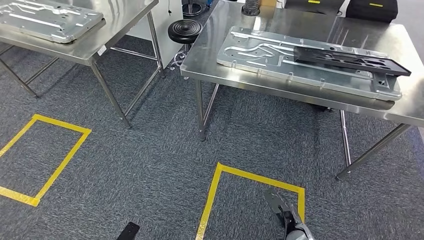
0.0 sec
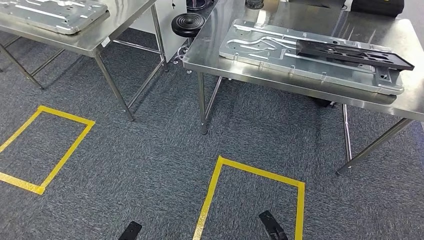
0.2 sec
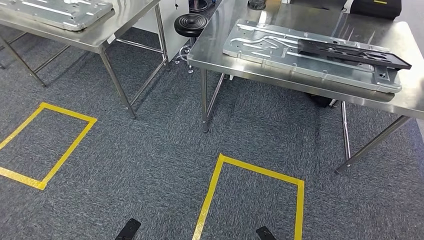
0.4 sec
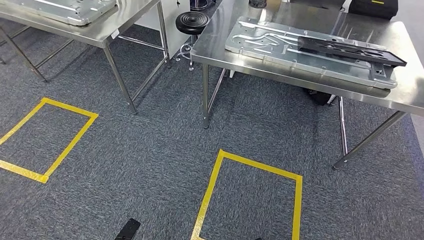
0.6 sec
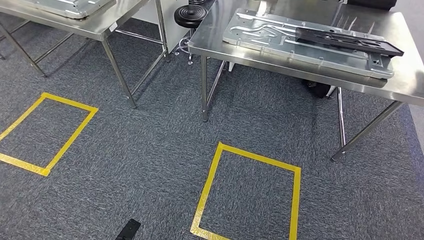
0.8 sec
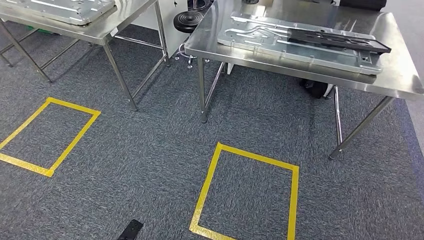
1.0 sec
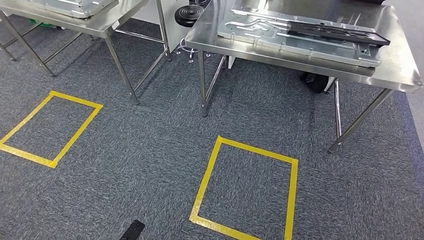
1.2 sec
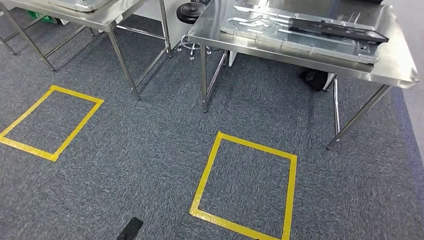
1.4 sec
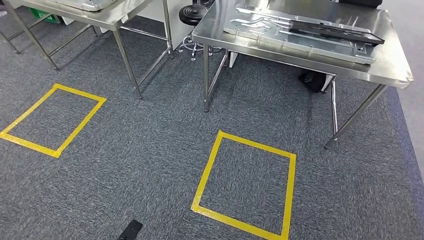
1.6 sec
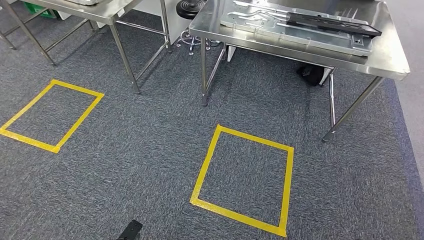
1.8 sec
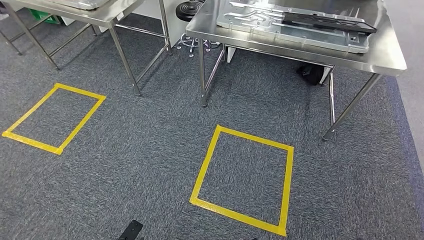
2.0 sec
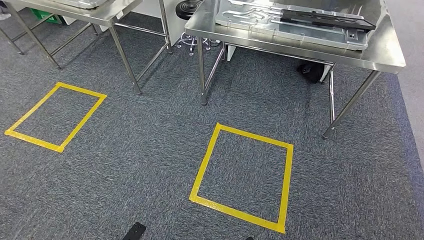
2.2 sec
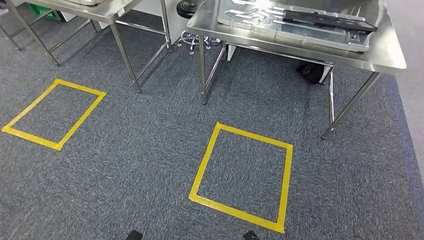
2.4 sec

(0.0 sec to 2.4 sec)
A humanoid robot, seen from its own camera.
Step, 0.0 sec - 2.4 sec: Move to the initial position of the shelf.

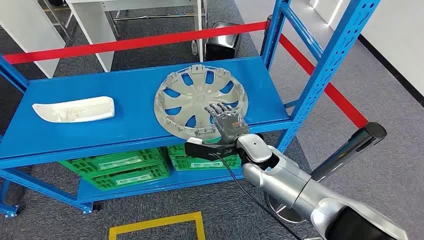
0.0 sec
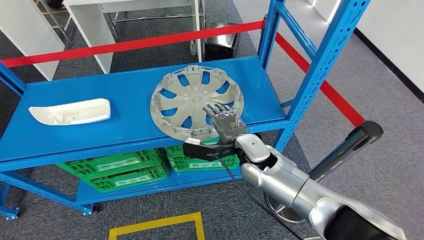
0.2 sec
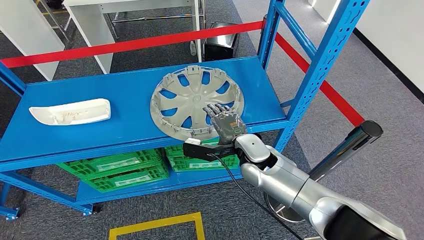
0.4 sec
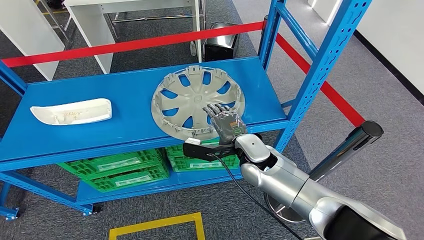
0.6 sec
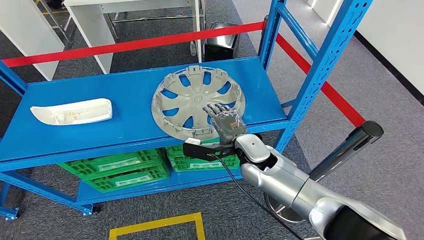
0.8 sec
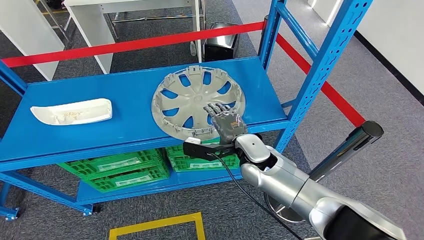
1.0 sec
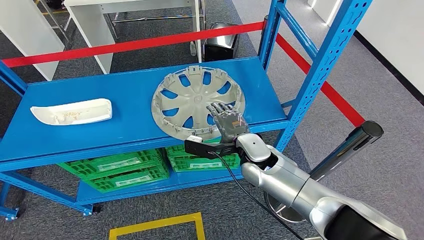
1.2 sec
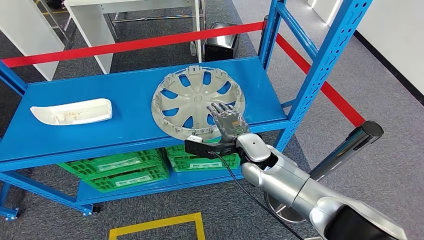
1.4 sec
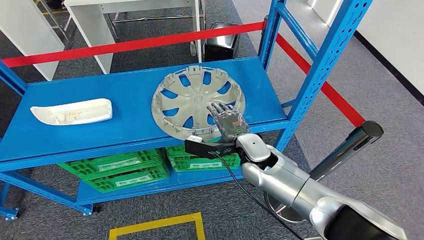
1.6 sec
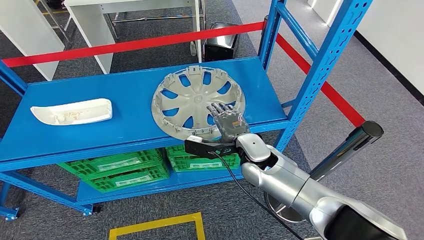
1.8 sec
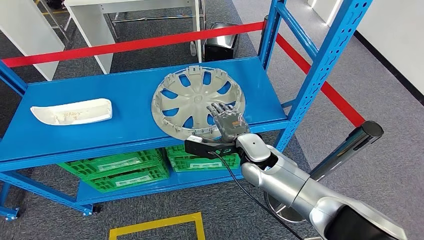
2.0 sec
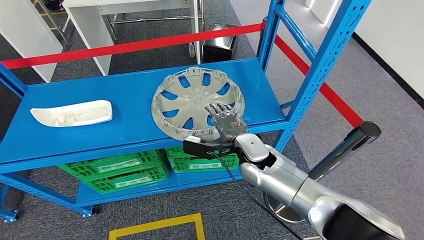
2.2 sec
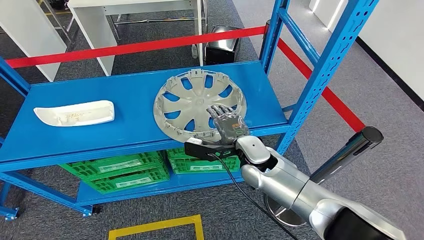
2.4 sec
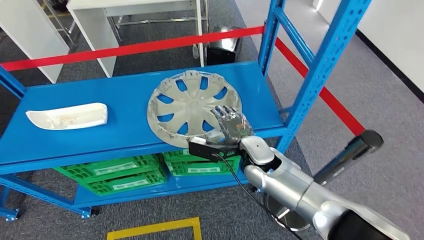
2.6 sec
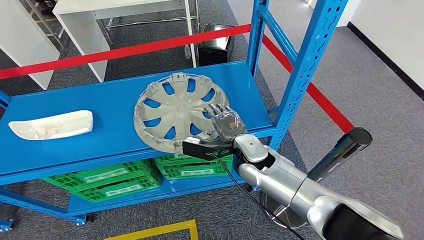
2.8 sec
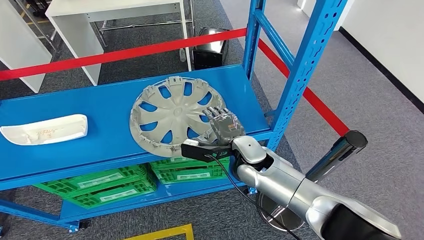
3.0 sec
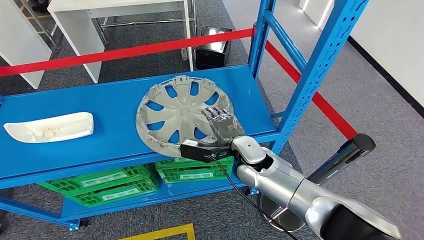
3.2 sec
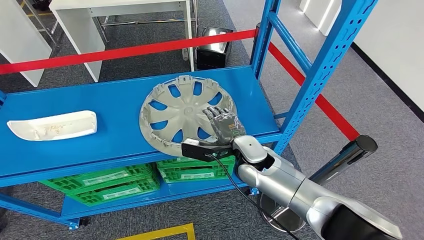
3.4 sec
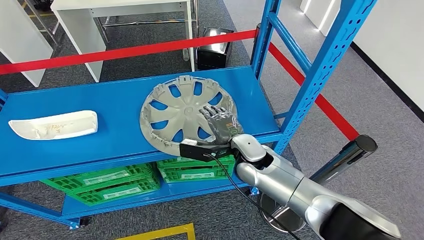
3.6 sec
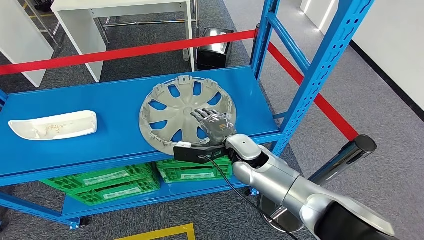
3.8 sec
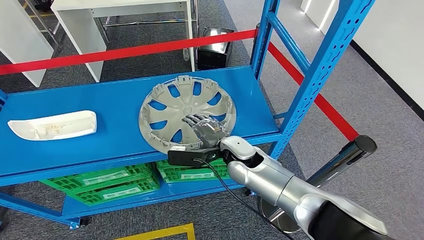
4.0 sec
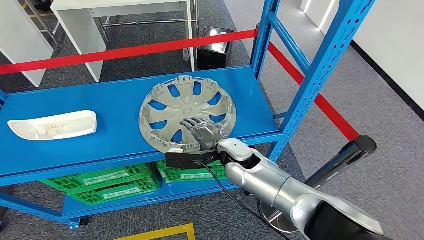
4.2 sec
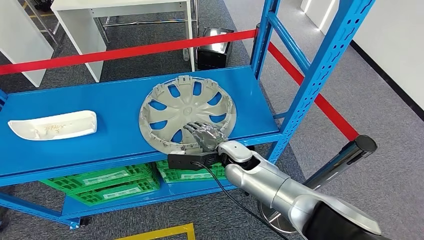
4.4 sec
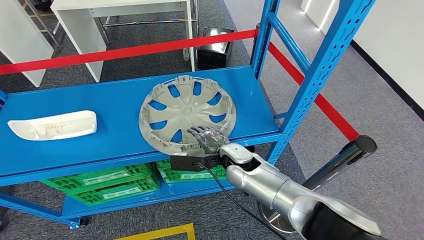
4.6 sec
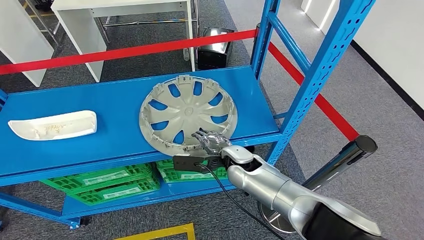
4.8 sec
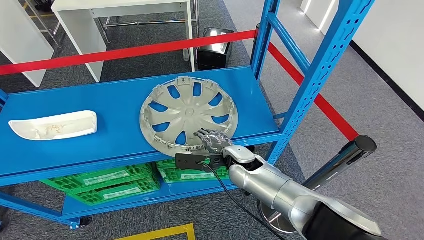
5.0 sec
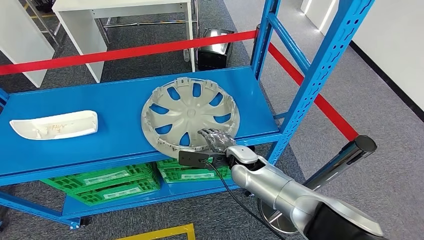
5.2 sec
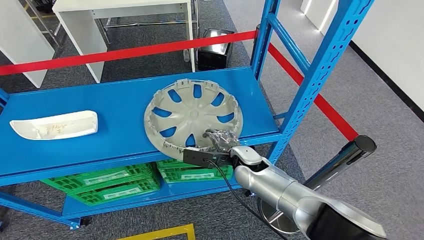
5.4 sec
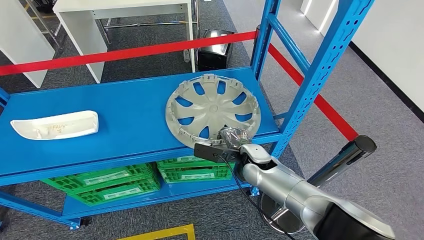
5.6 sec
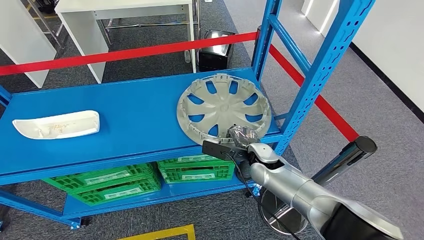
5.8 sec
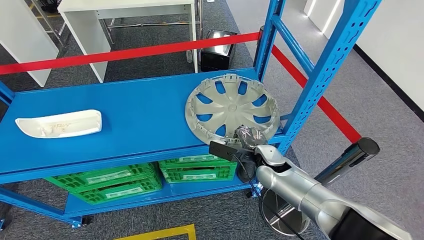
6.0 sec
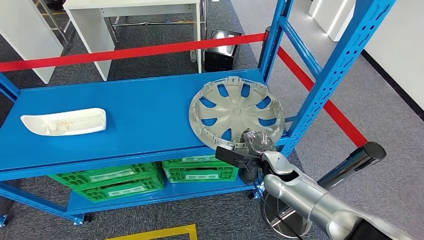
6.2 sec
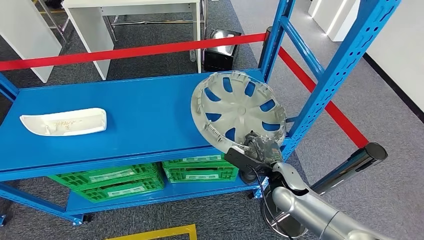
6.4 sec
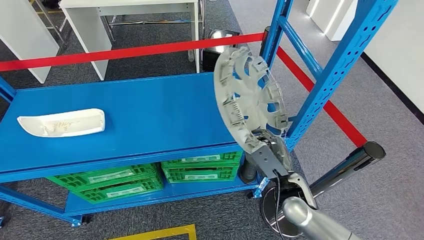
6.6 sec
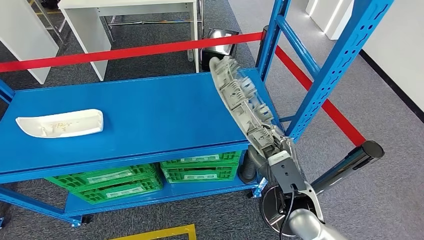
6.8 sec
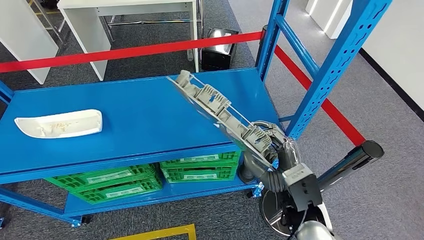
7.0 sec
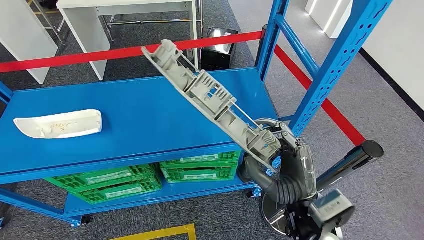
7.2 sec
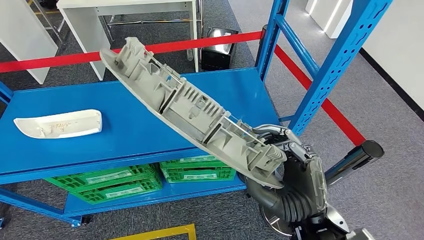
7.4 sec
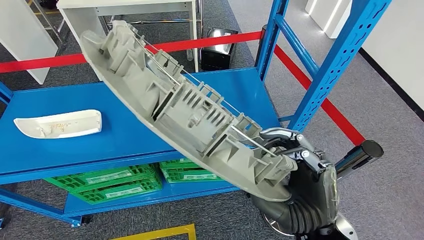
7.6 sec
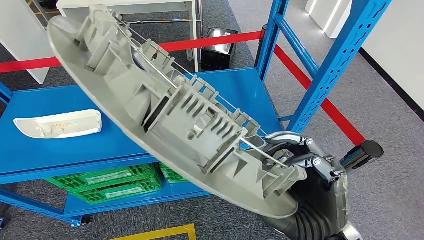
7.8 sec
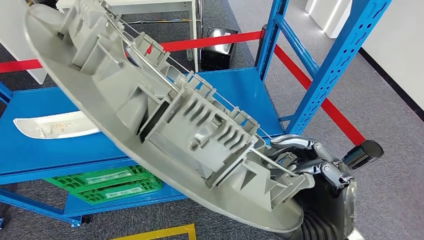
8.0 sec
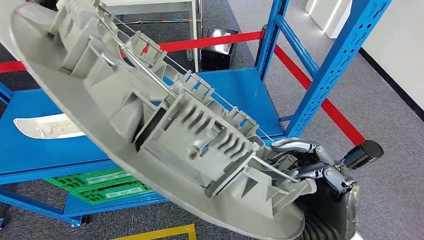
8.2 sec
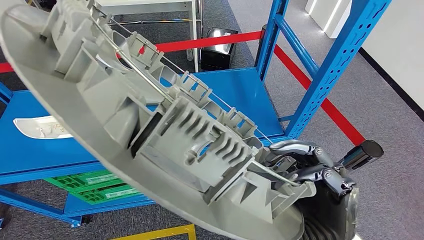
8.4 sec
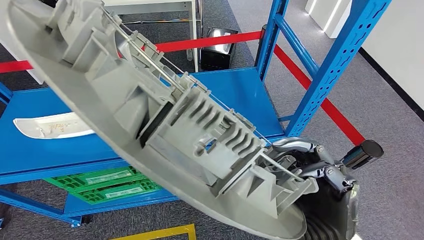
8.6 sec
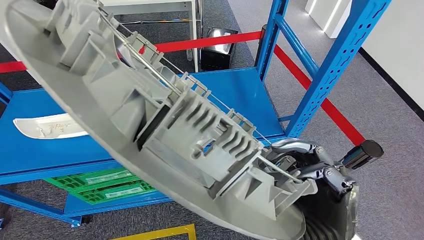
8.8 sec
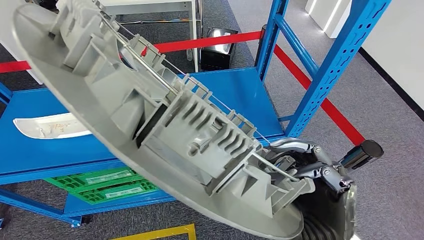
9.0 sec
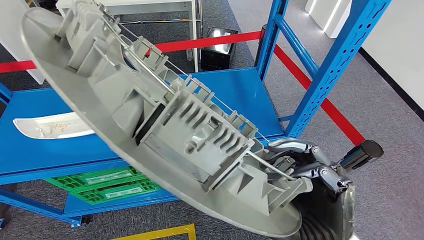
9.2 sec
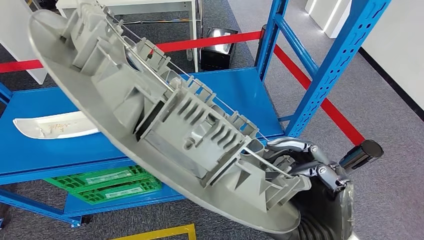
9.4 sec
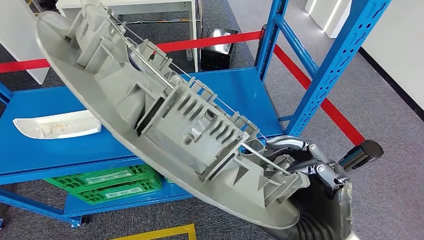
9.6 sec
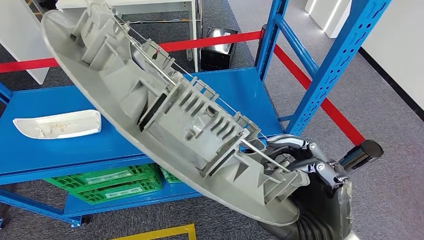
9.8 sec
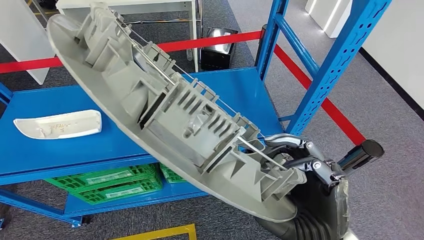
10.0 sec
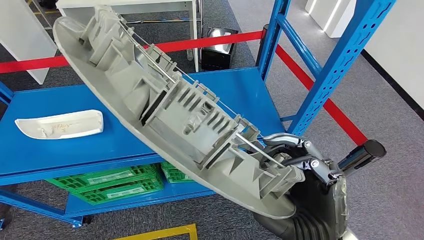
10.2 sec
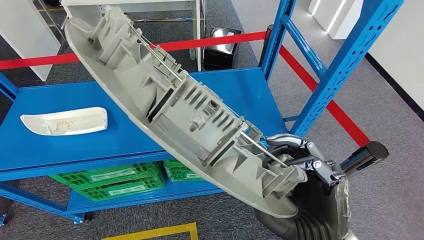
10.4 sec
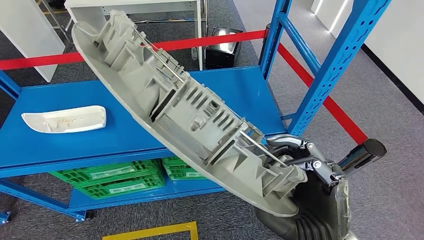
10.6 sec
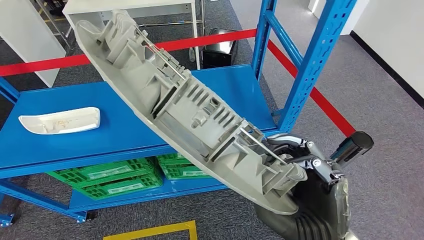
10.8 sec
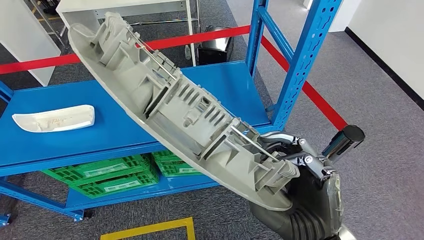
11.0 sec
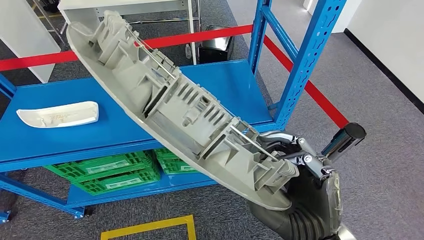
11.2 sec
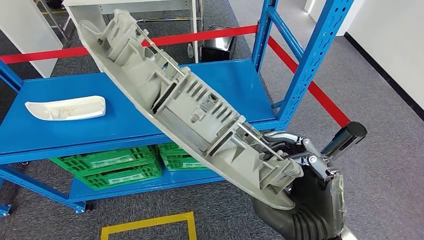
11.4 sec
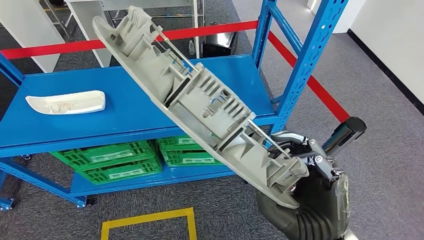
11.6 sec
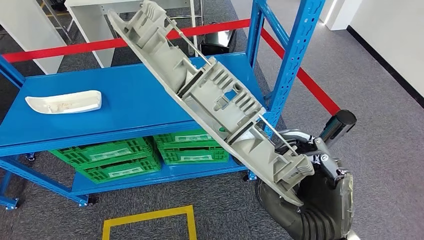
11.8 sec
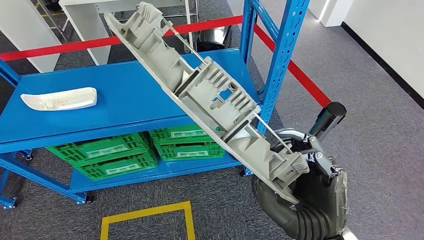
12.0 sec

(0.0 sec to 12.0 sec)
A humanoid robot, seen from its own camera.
Step, 0.0 sec - 8.0 sec: Pick up the large material from the shelf.

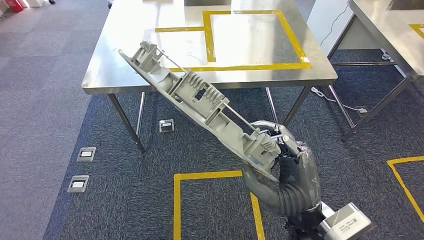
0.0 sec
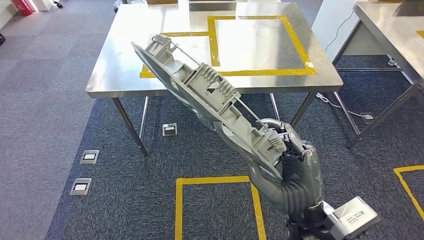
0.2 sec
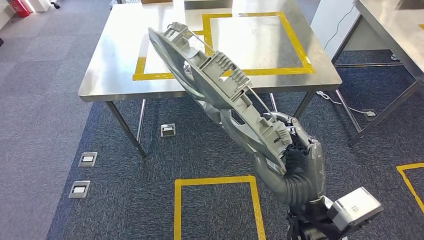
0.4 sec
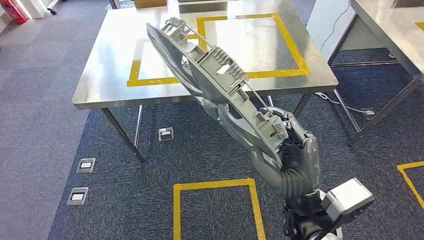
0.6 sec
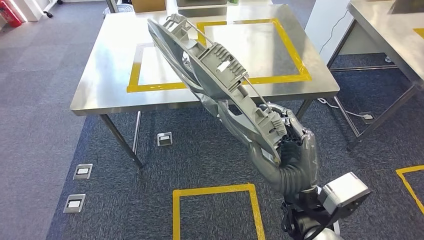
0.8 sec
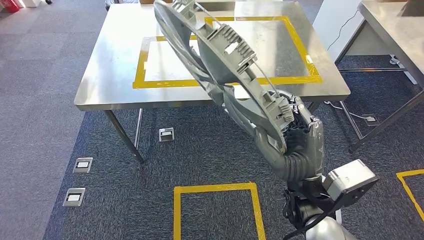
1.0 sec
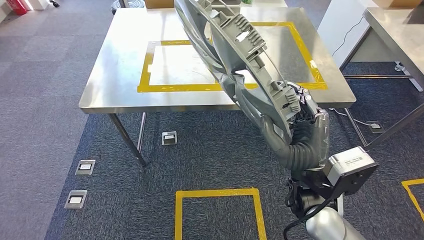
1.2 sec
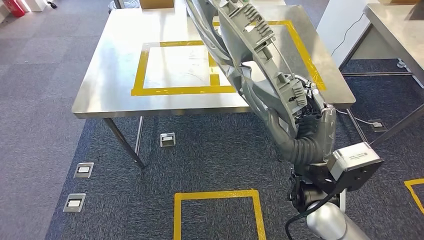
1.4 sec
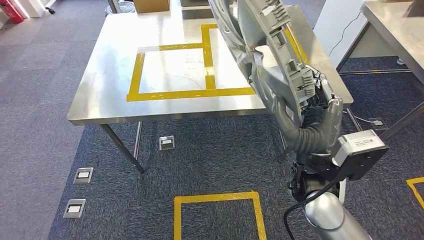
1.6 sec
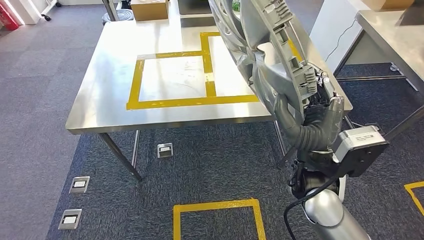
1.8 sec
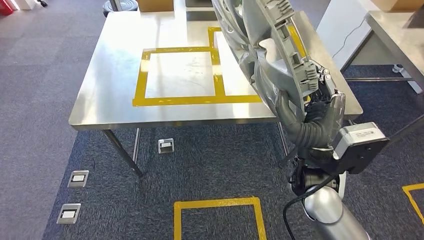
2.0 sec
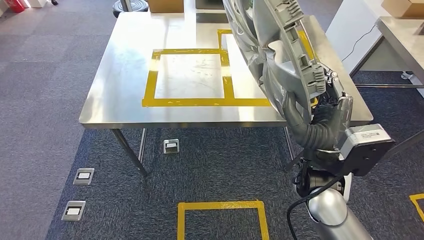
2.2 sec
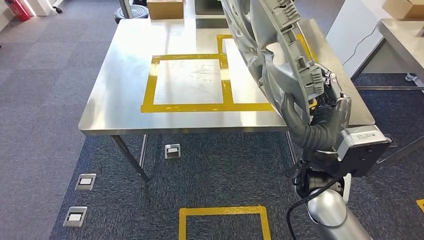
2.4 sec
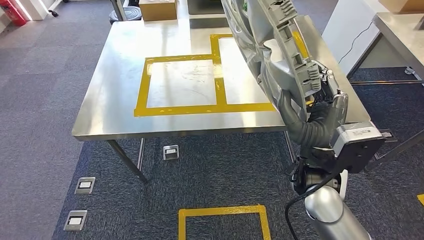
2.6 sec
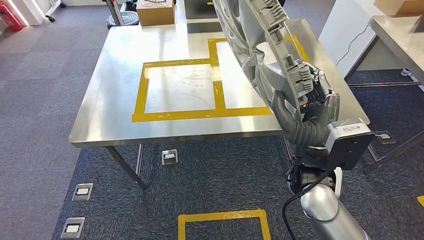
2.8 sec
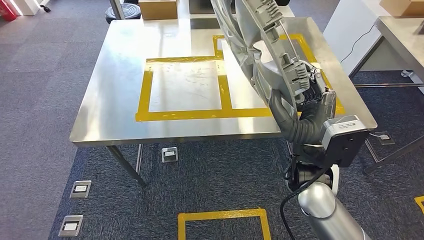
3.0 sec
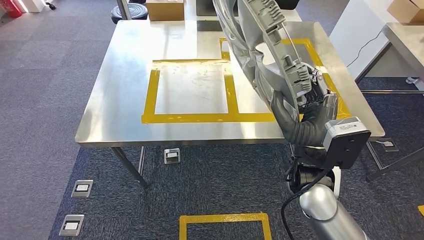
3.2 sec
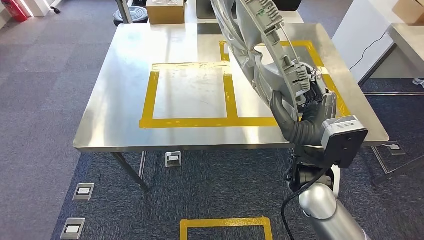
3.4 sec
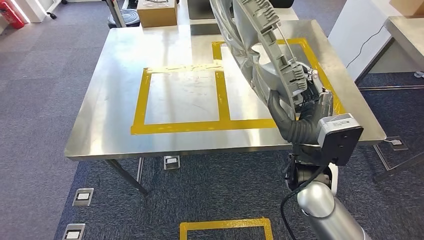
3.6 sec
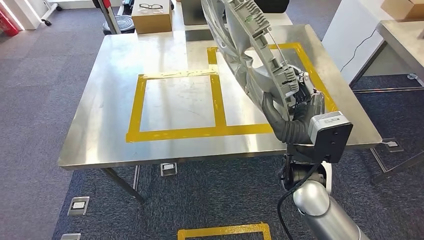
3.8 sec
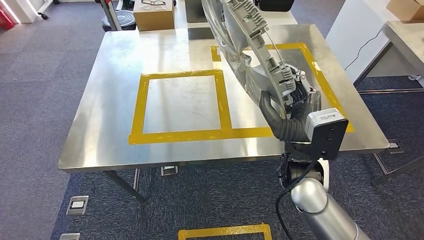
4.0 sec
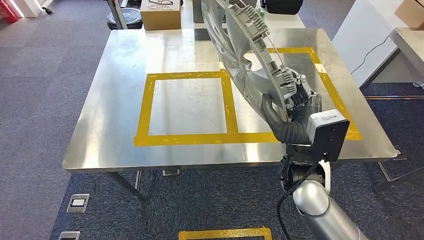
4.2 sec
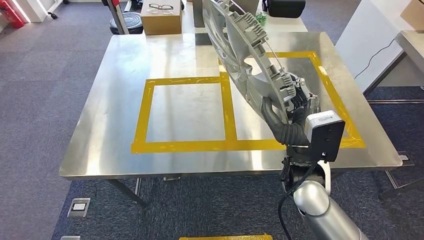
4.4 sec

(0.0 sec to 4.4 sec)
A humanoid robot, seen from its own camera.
Step, 0.0 sec - 2.2 sec: Move the large material to the workbench.
